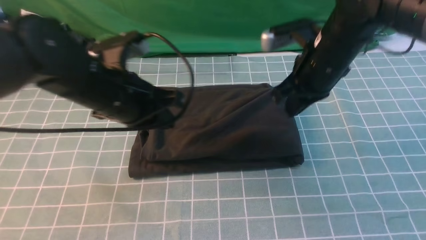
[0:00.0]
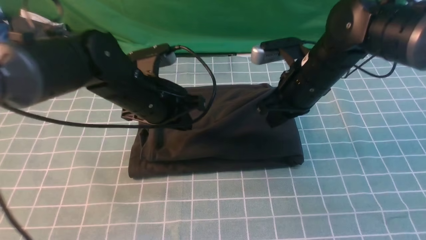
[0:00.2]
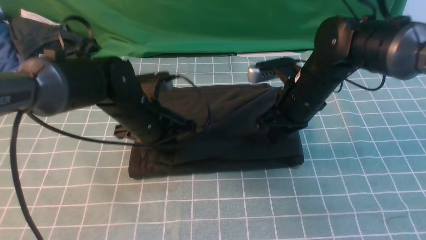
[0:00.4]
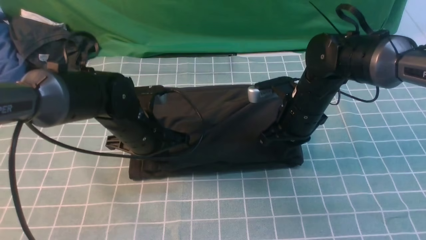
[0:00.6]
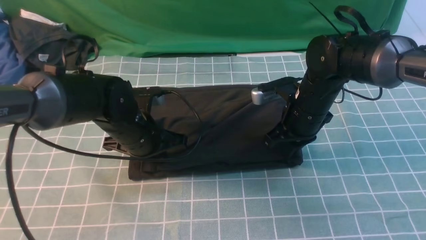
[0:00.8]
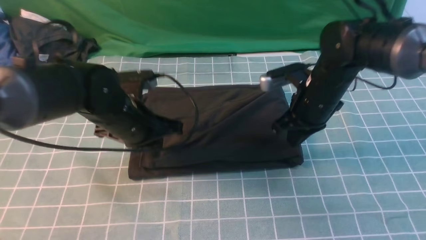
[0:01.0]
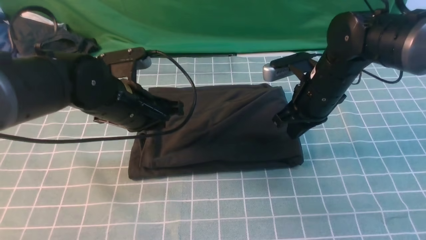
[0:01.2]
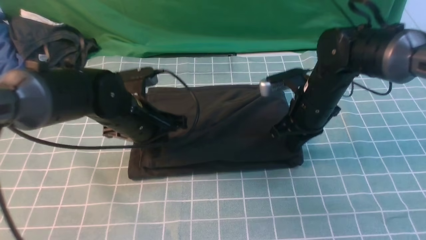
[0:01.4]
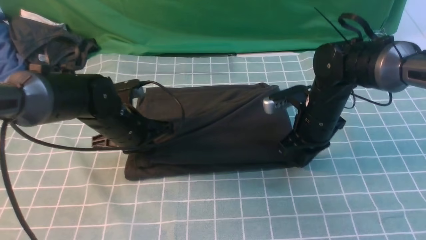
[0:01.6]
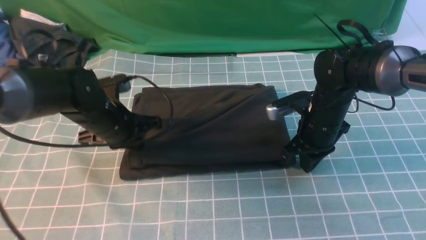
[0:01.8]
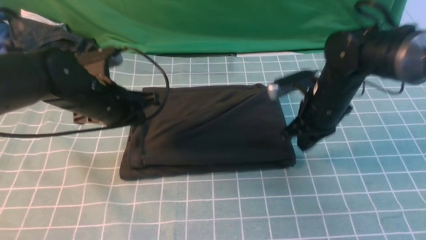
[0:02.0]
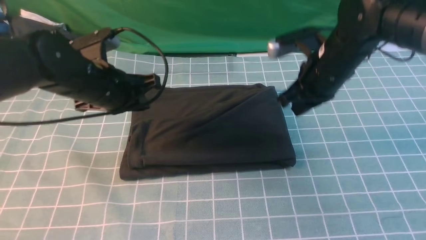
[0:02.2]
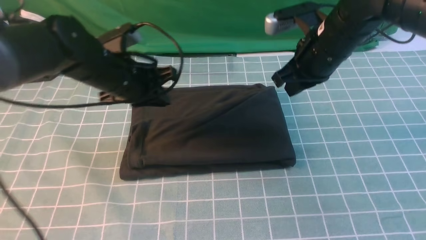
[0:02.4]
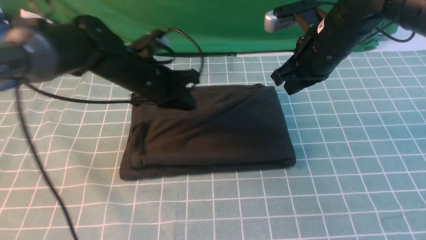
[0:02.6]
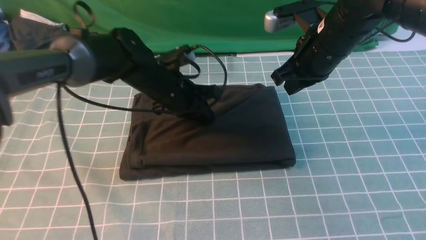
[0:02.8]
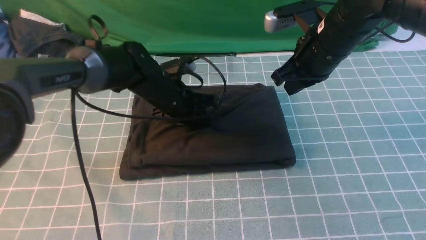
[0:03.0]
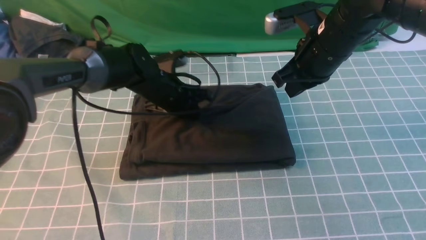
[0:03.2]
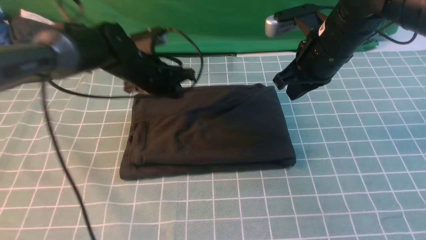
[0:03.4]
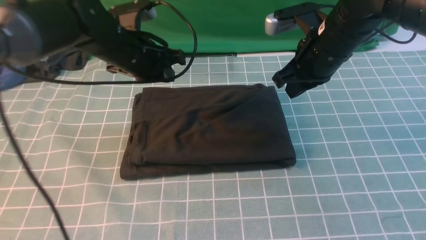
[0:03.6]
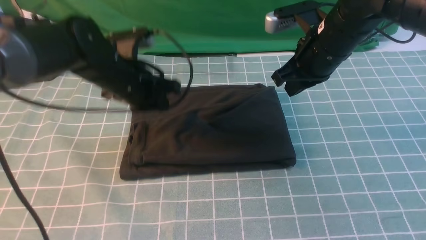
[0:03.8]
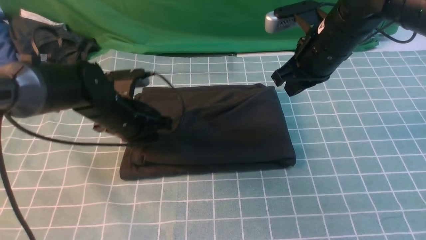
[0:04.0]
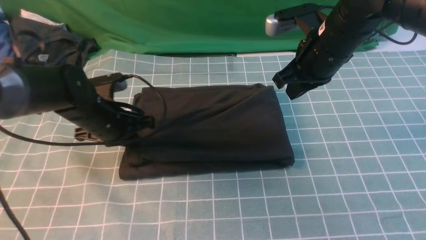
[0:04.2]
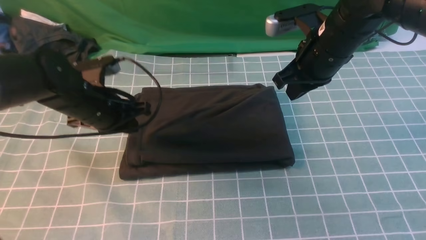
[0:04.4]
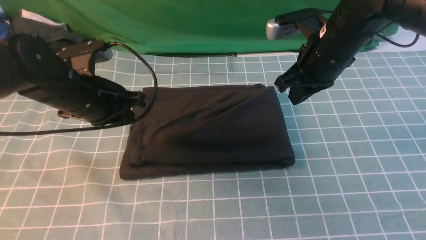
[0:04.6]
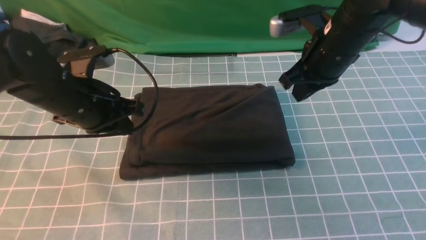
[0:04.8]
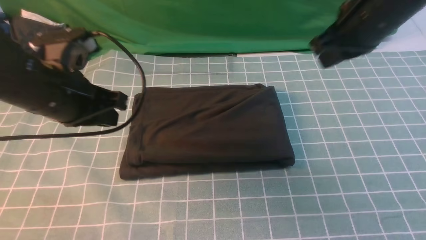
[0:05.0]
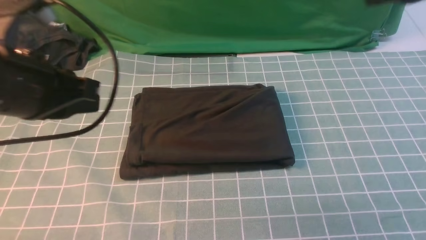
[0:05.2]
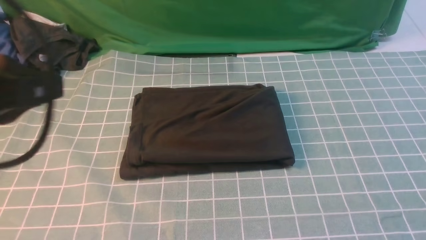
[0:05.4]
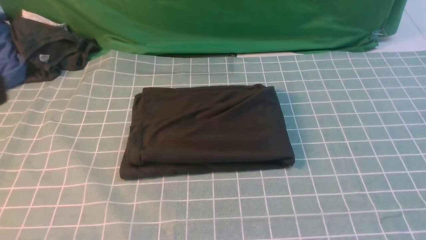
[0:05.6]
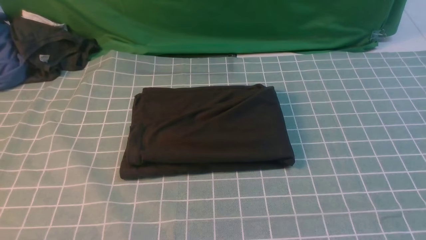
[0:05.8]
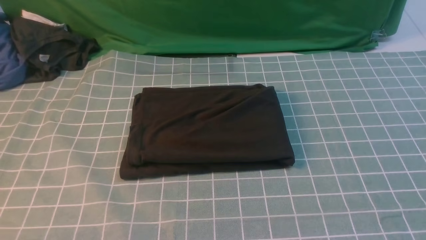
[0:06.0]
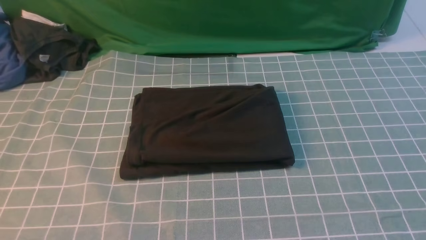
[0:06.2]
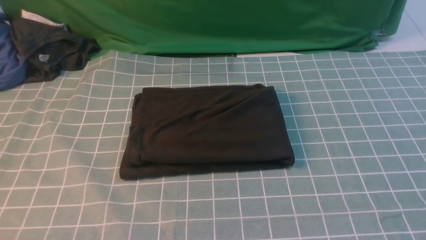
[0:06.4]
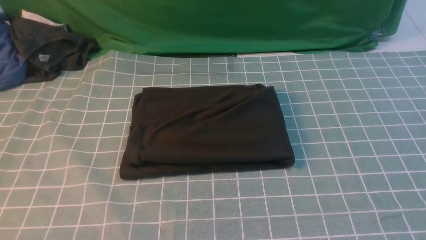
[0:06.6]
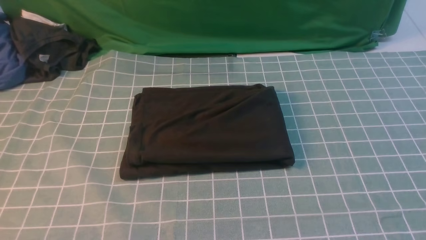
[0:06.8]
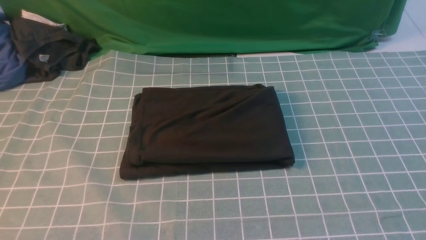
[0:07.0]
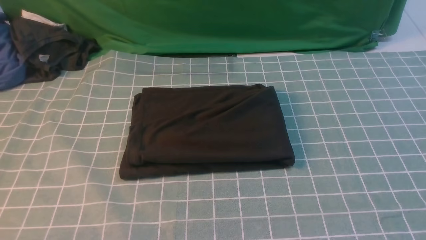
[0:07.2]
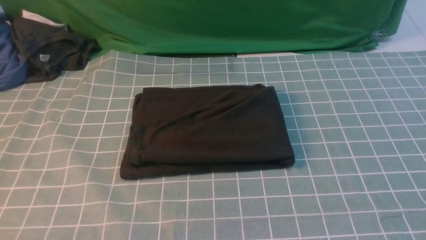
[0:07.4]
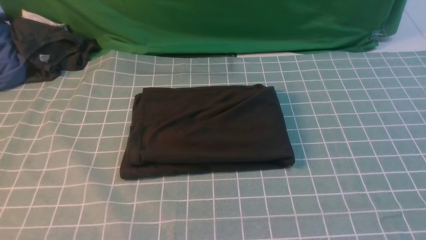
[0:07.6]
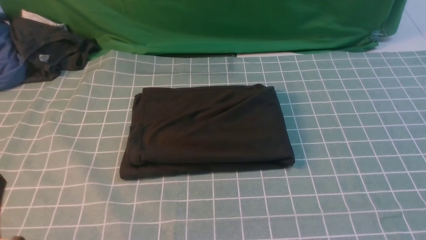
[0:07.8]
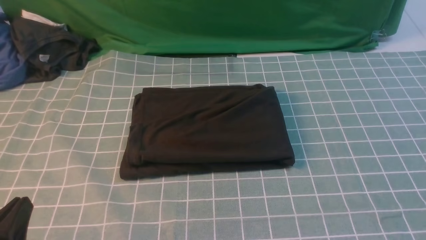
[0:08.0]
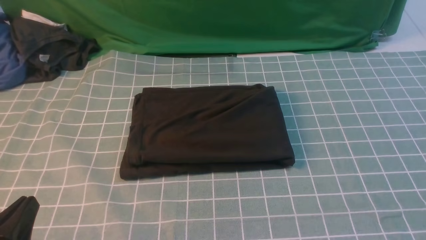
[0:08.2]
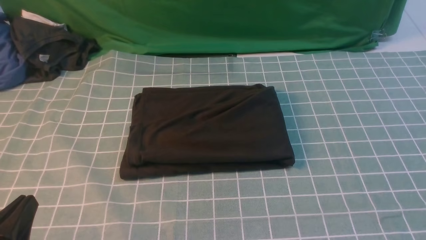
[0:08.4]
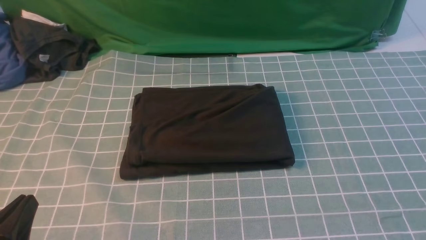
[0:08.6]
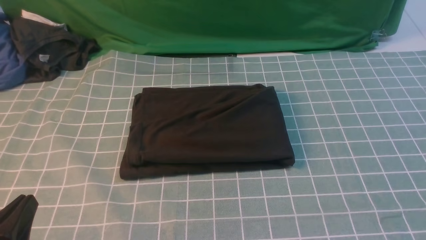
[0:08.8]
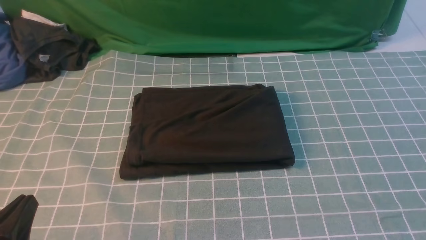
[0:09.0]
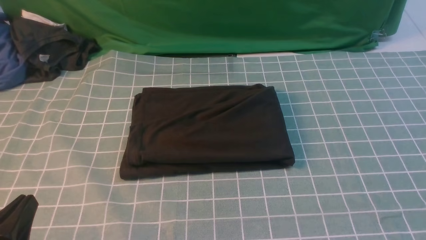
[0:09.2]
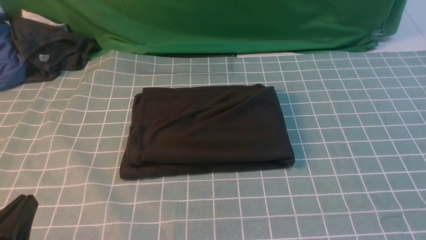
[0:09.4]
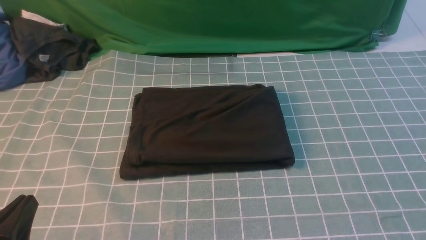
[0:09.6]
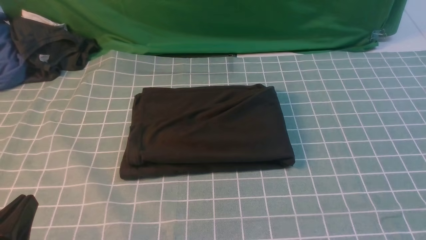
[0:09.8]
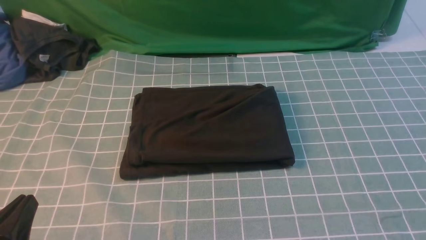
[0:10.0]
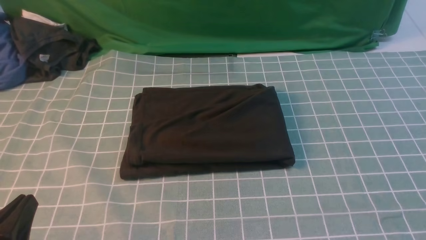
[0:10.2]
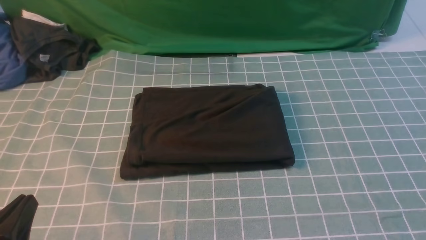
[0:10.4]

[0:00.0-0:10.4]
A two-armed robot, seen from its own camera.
0:00.0 to 0:01.4: Both grippers move downward, some 10 cm.
0:01.4 to 0:03.0: The right gripper travels upward by approximately 10 cm. The left gripper heads forward, covering roughly 10 cm.
0:03.0 to 0:04.4: The left gripper travels to the left and backward by about 10 cm.
0:04.4 to 0:06.0: The right gripper is displaced backward and to the right by about 40 cm. Meanwhile the left gripper heads backward and upward, covering some 40 cm.
0:07.4 to 0:09.0: The left gripper shifts roughly 20 cm downward.

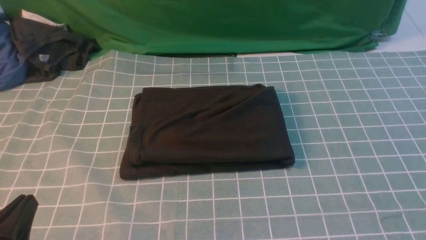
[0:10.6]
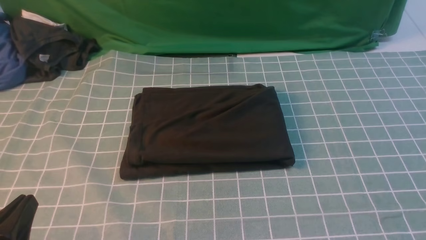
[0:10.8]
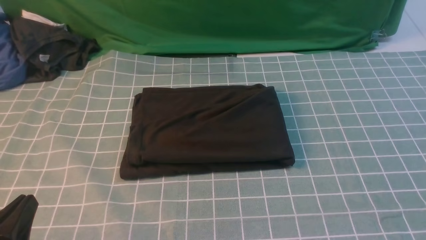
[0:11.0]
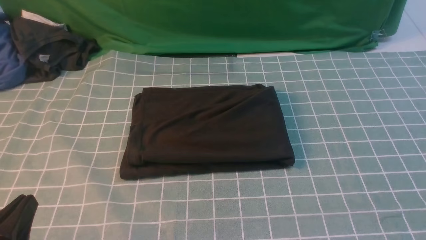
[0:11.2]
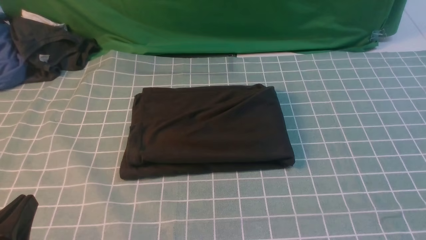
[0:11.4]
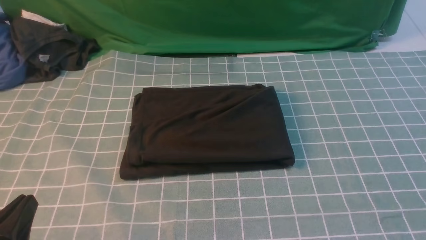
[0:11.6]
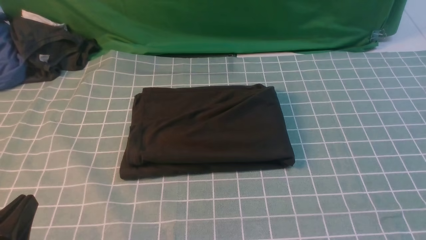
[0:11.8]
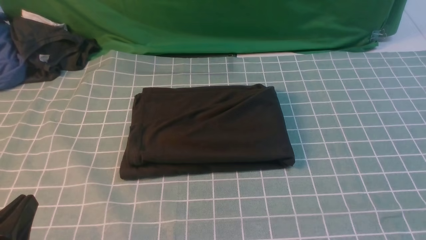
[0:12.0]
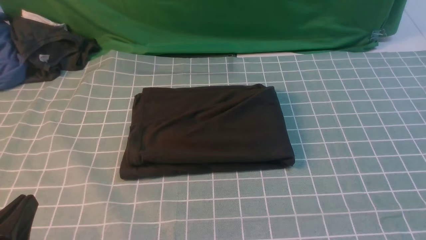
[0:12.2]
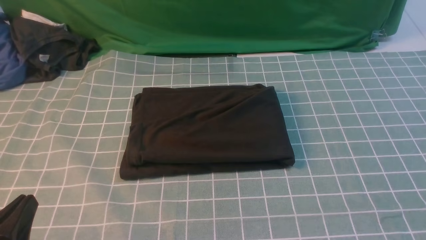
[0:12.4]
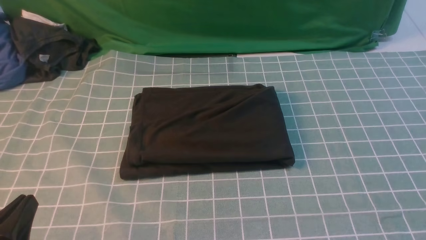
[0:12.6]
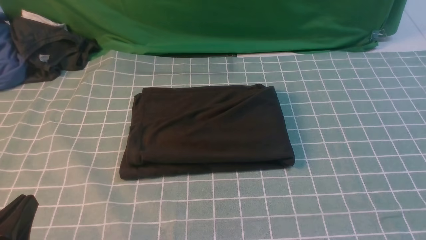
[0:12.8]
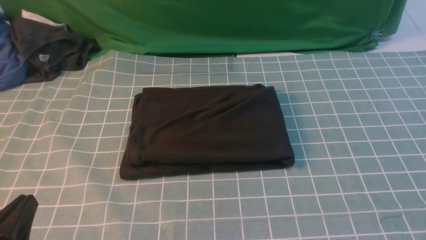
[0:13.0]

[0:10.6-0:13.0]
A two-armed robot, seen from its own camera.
0:11.8 to 0:13.0: The two grippers keep their place.
